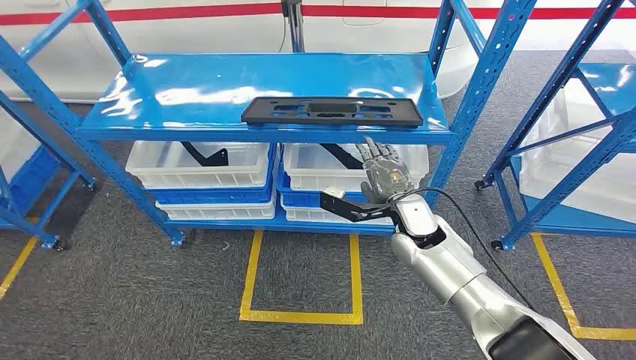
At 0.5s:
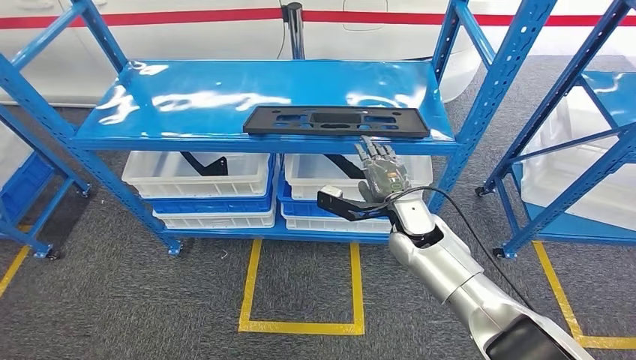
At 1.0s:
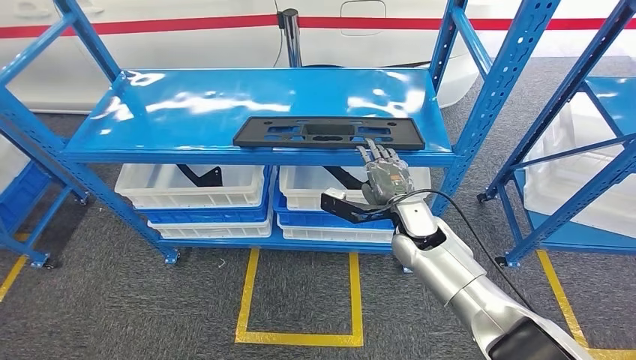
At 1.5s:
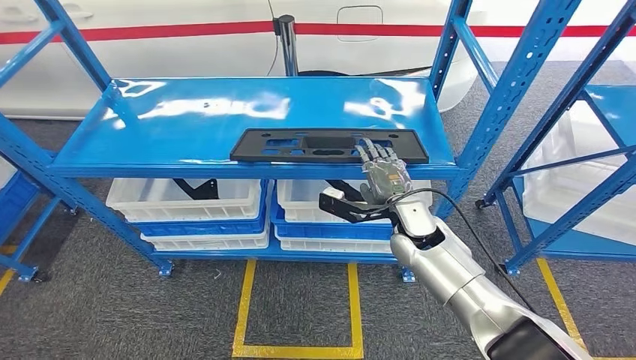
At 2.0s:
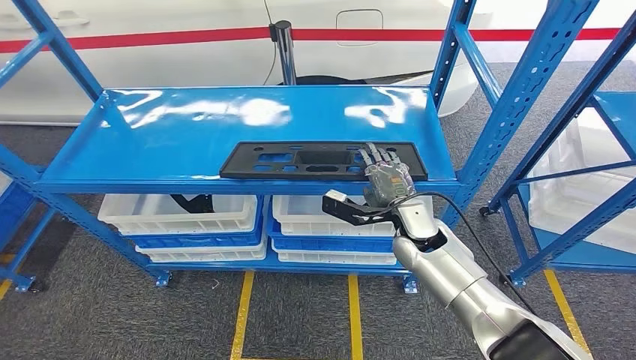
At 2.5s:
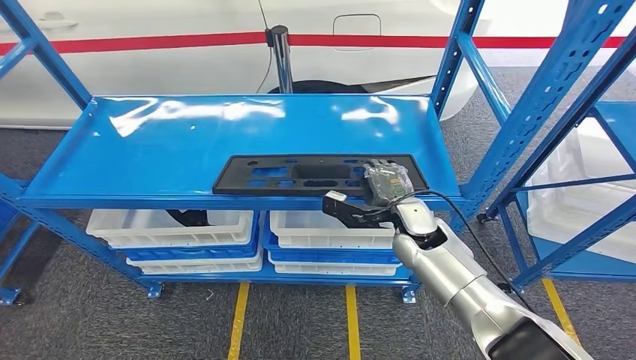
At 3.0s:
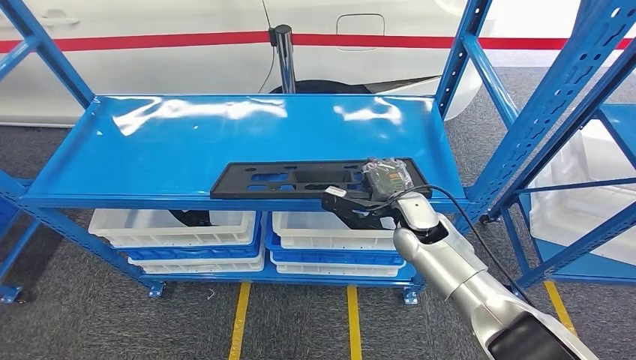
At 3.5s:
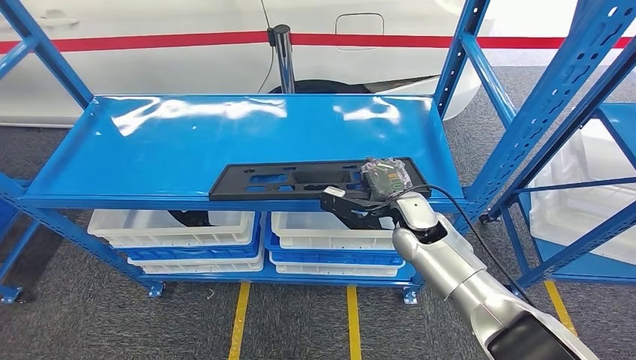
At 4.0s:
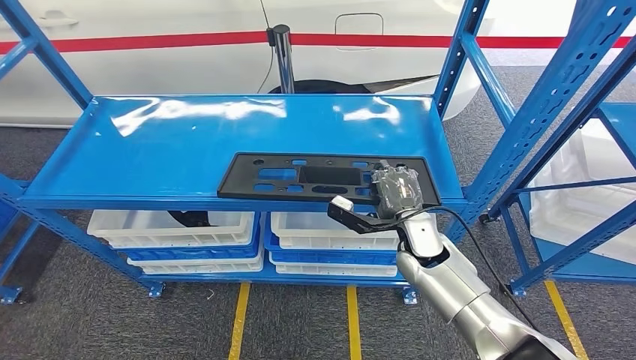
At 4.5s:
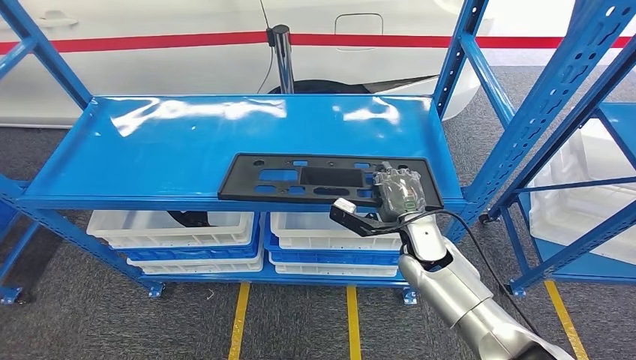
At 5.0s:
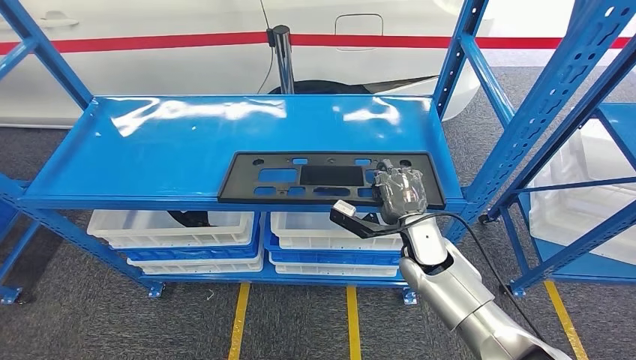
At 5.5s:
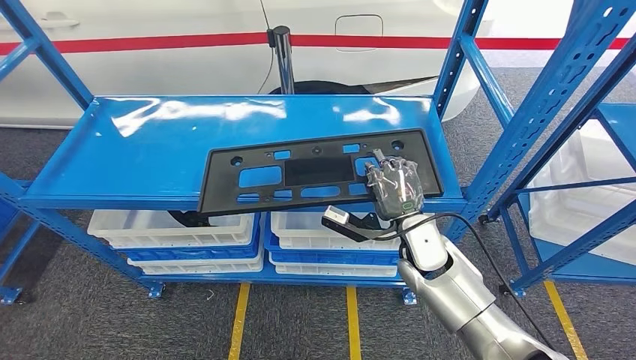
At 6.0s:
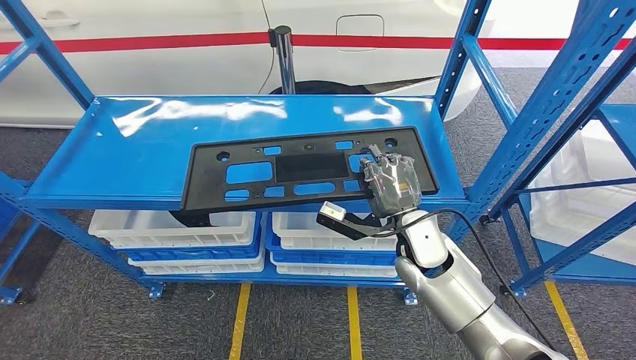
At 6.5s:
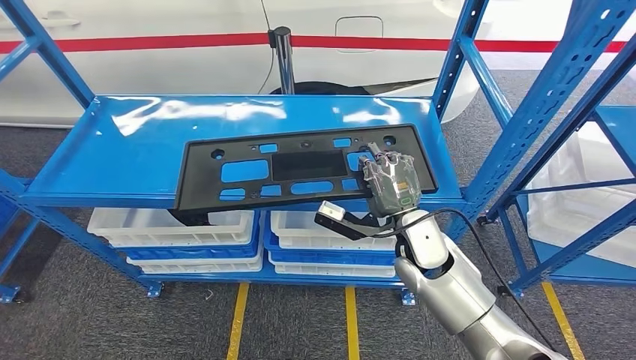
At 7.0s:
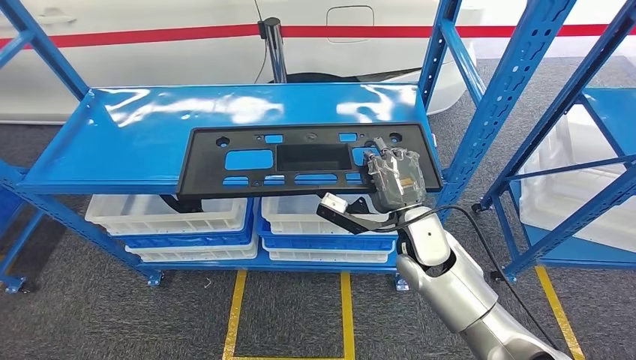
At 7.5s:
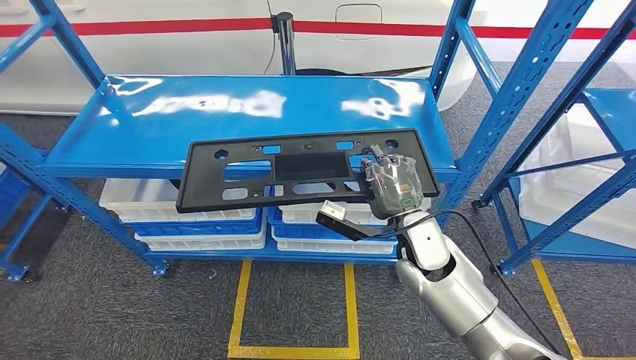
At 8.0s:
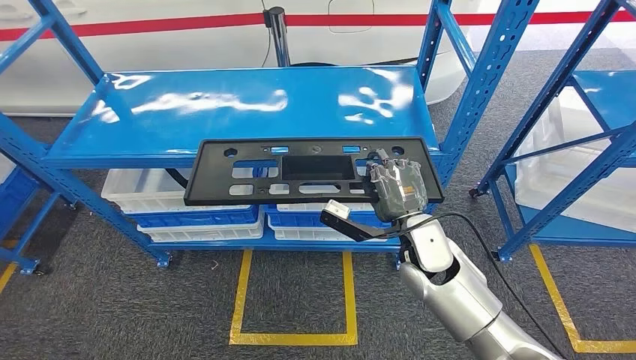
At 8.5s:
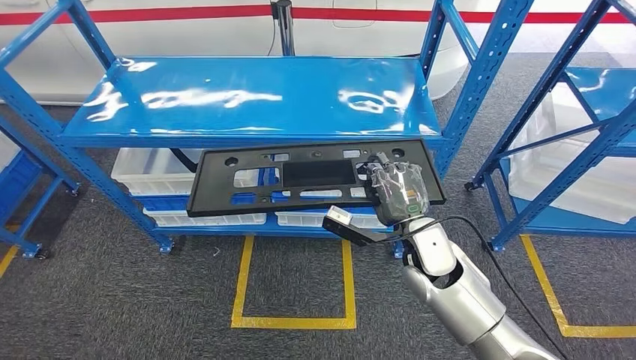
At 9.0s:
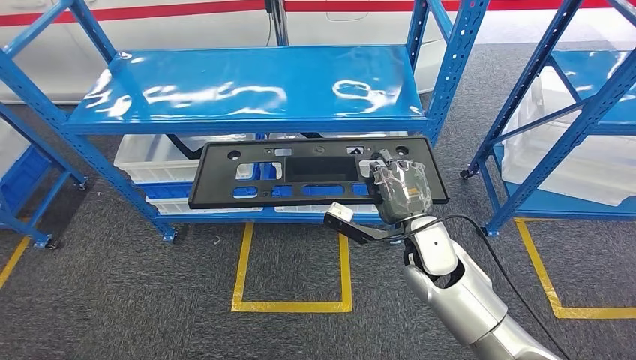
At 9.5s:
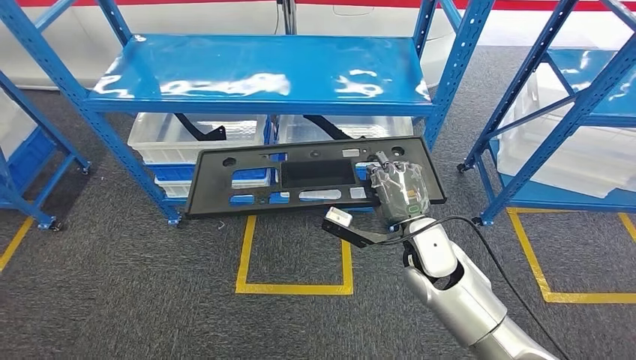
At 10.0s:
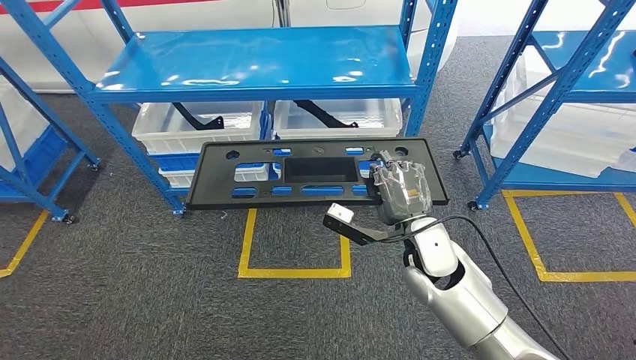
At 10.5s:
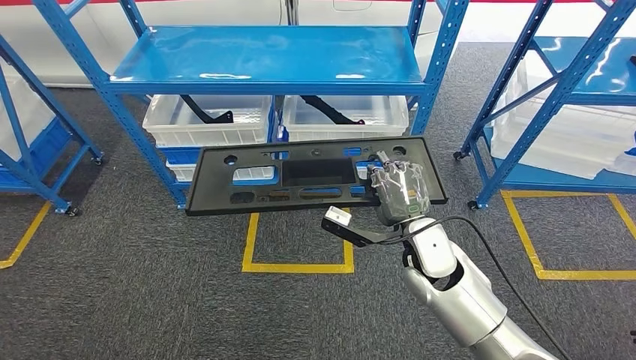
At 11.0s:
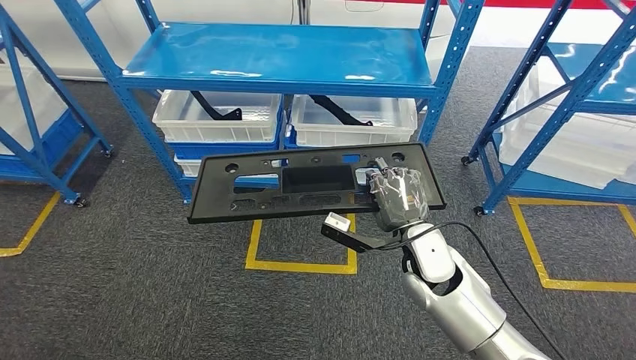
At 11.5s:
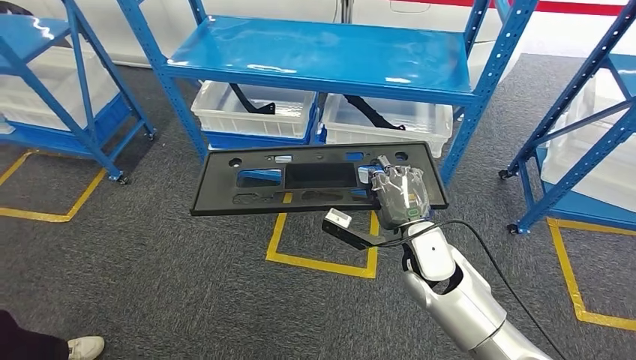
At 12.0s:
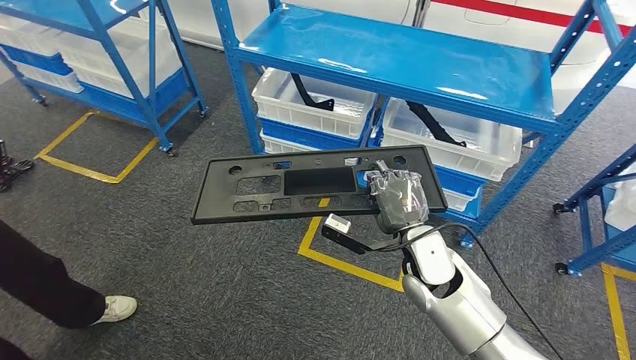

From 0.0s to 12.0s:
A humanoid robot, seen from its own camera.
Step, from 0.0s to 9.0s: Pick up the large material from the shelf.
From 4.0s to 6.0s: The hands make only small movements.

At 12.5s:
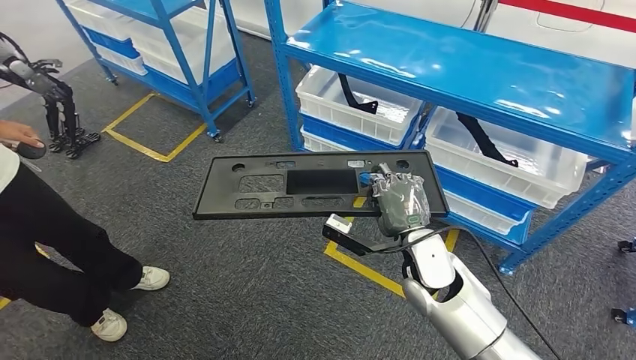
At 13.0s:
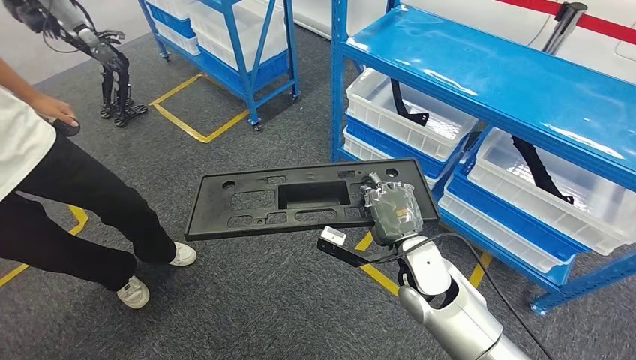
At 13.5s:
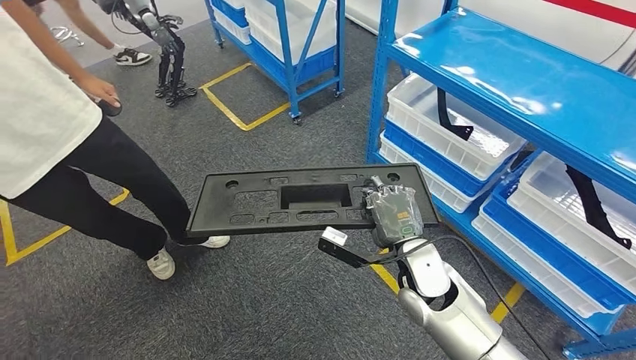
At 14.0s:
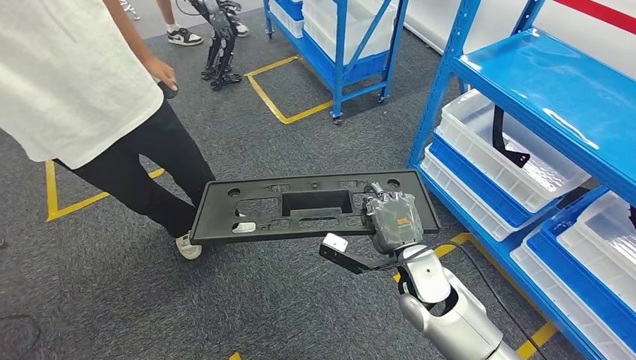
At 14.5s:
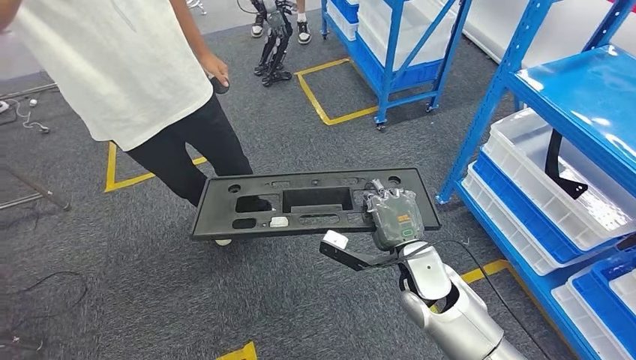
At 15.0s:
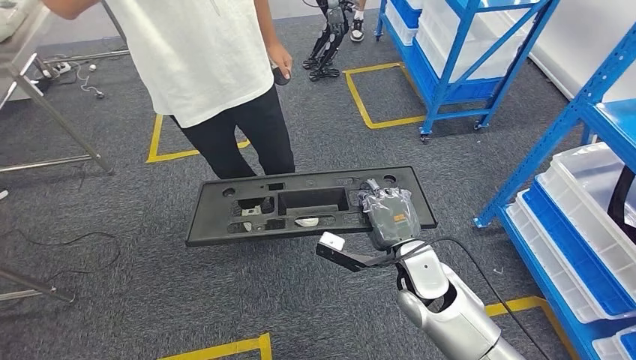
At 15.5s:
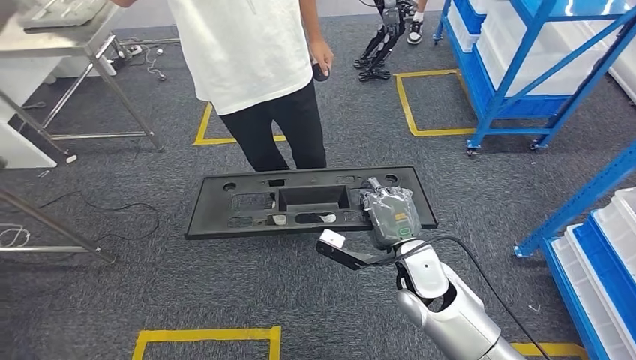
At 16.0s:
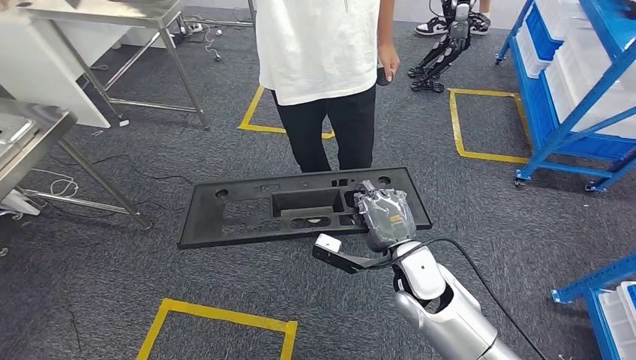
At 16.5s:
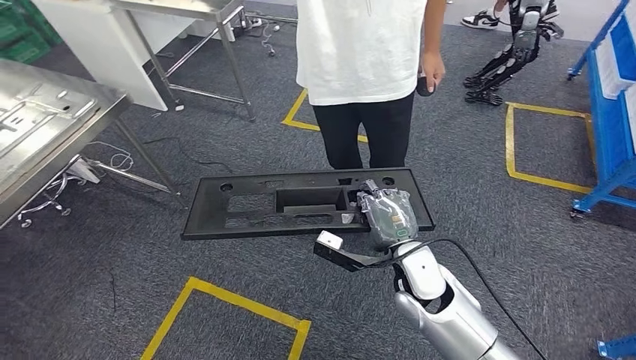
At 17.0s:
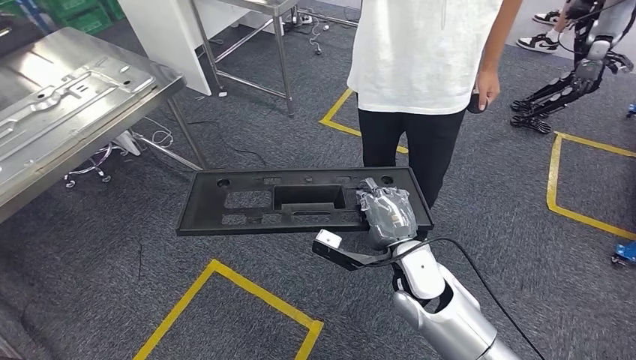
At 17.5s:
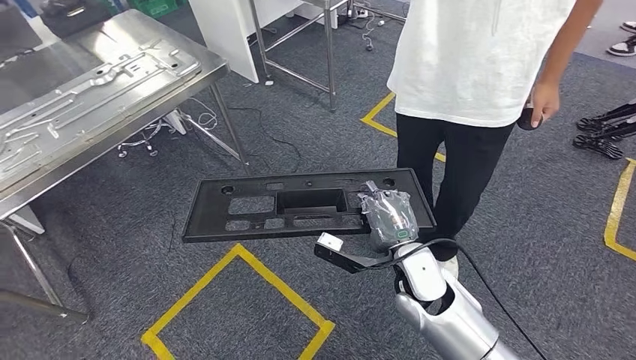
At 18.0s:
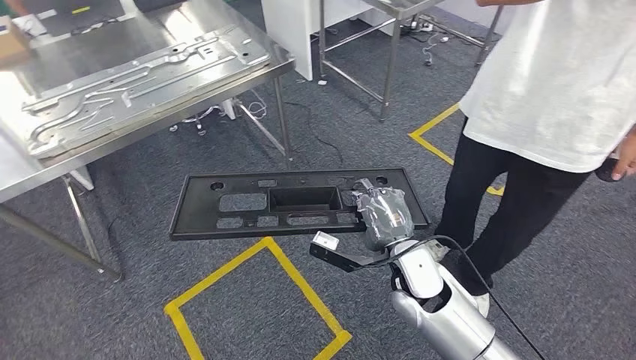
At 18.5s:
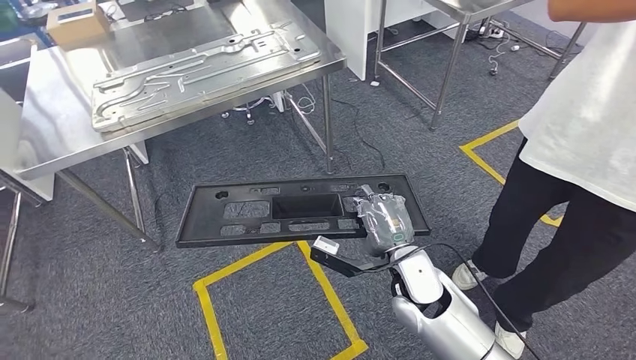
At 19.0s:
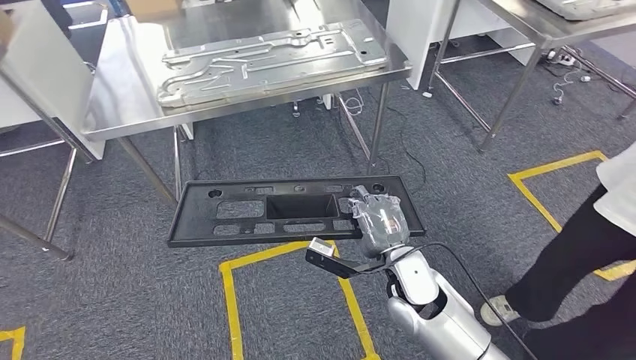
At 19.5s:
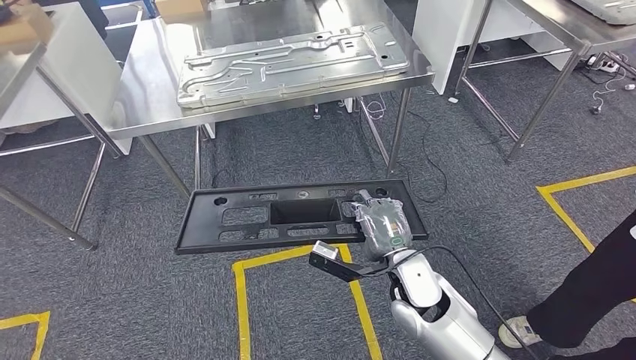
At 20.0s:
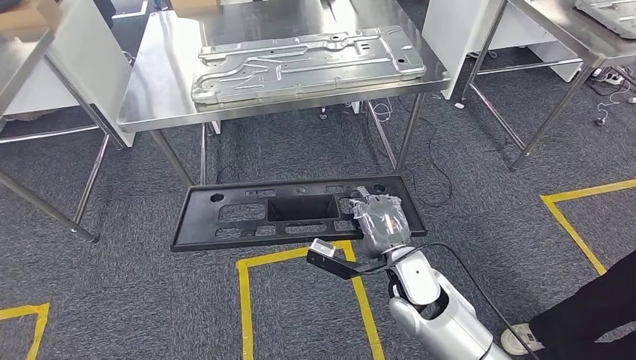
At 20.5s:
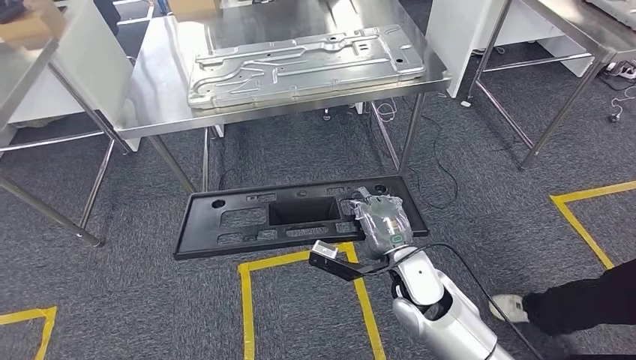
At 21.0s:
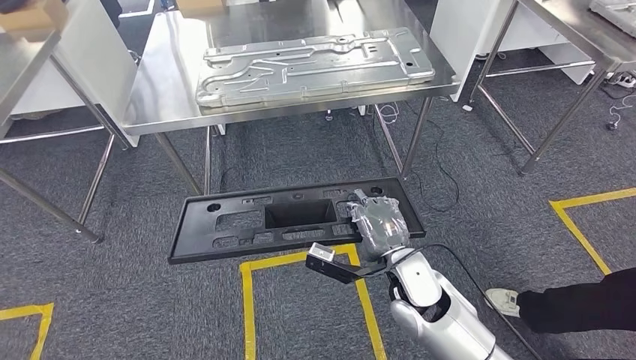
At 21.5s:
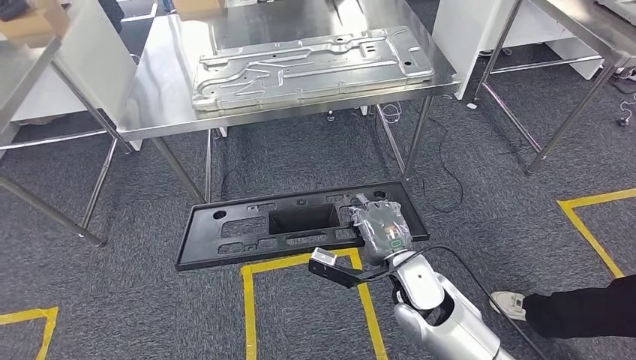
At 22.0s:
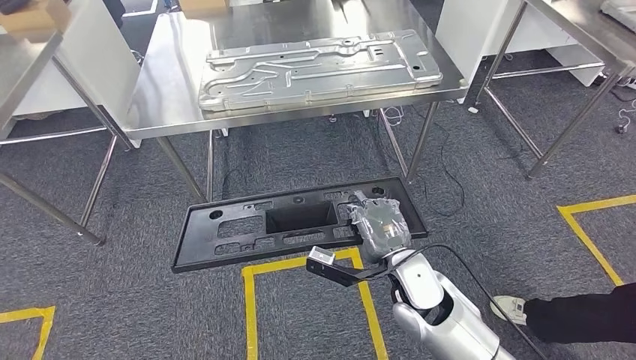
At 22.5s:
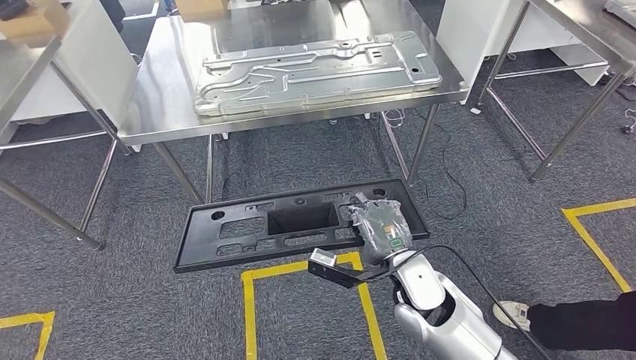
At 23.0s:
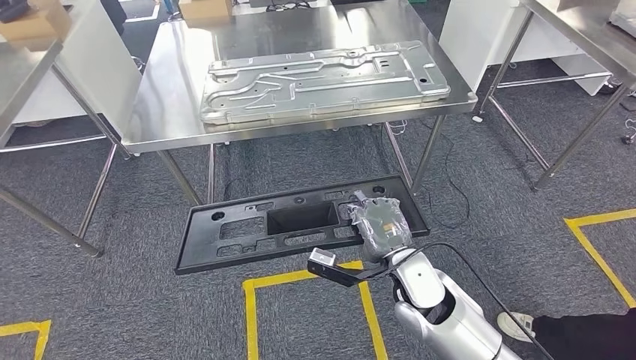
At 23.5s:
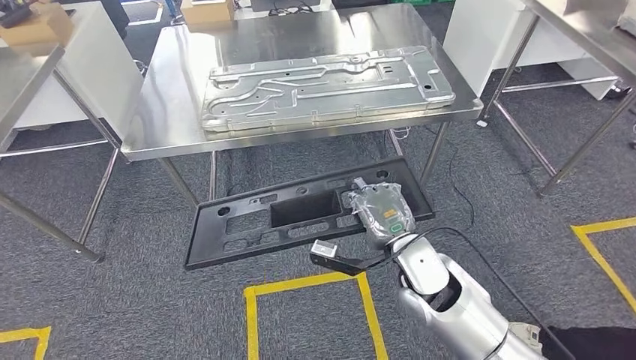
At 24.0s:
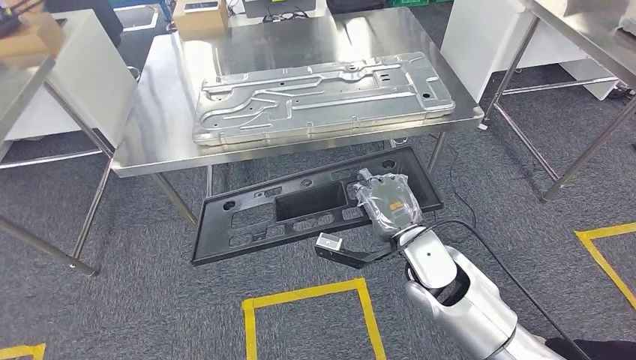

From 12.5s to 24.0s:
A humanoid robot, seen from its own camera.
Step, from 12.5s to 23.5s: Move the large material to the workbench.
